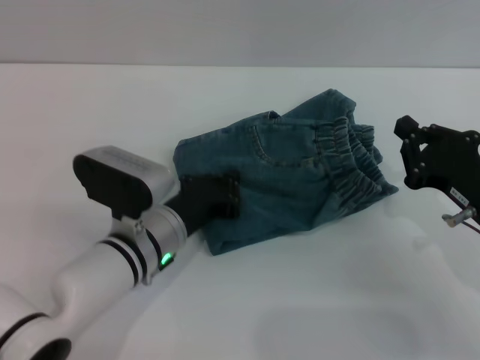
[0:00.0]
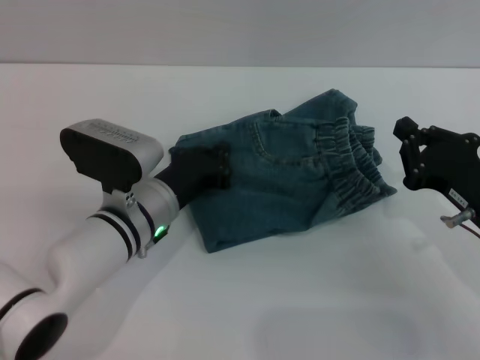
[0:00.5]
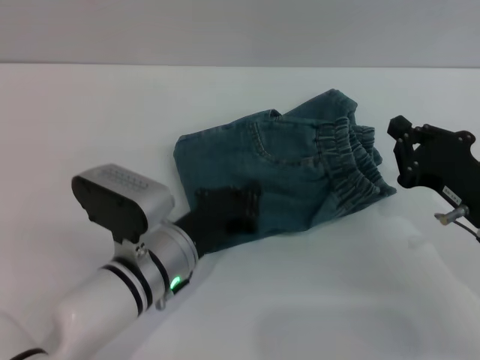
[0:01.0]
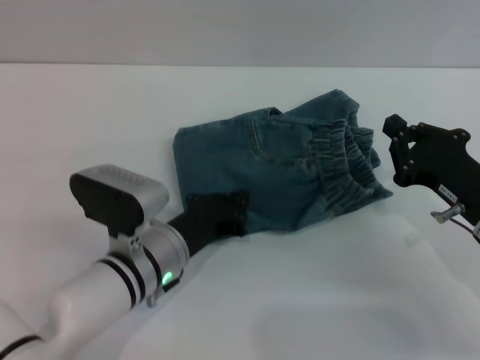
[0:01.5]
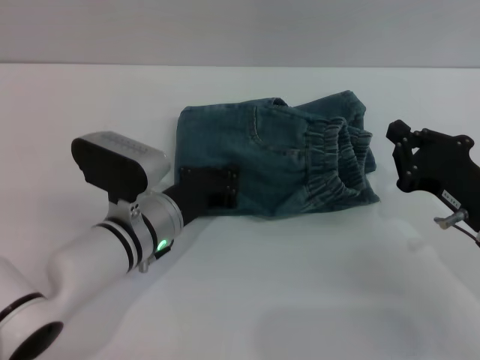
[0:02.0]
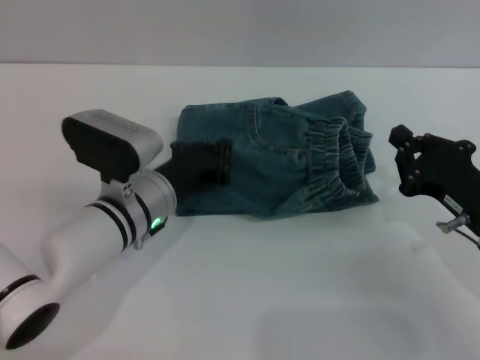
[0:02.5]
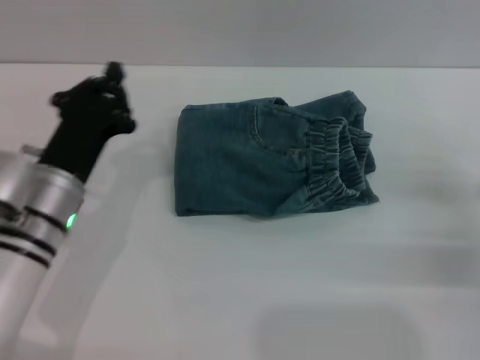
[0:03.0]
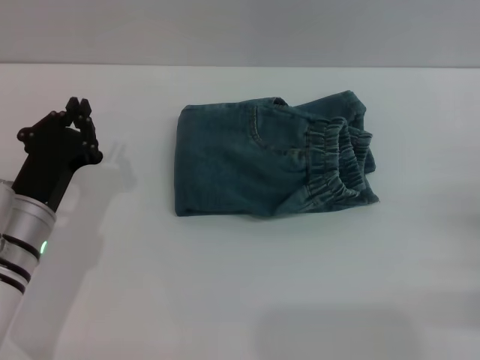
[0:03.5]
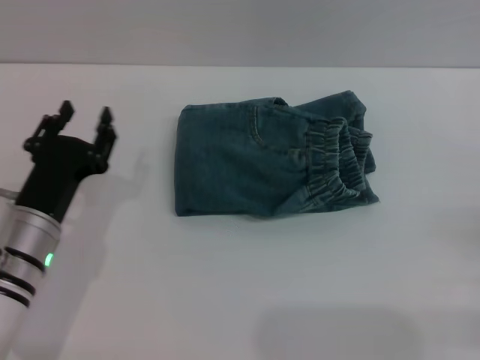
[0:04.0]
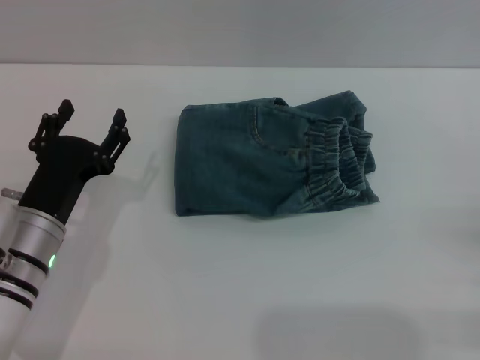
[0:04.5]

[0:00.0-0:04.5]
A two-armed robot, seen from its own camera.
Step, 0:00.0 to 0:02.5: Place the folded trousers onto the center area with the left grippers.
0:00.0 to 0:02.0: The grippers make only small movements.
0:02.0 to 0:04.5: The left gripper travels to the left by about 10 cm, and opens its fingers; the right gripper travels to the right and backward by approximately 15 cm, and opens up.

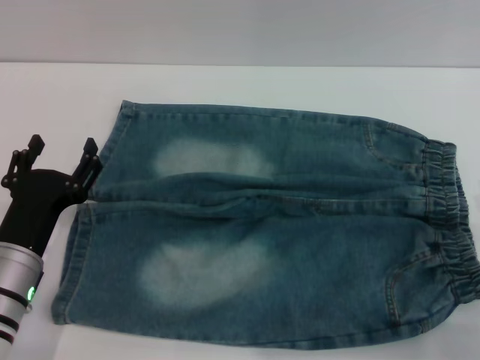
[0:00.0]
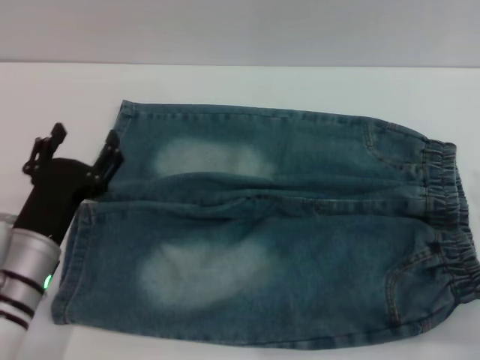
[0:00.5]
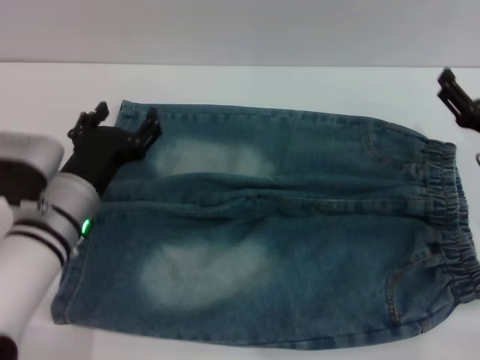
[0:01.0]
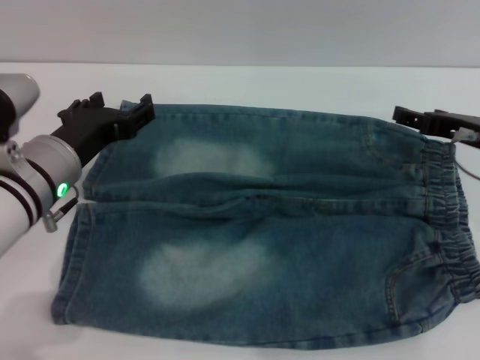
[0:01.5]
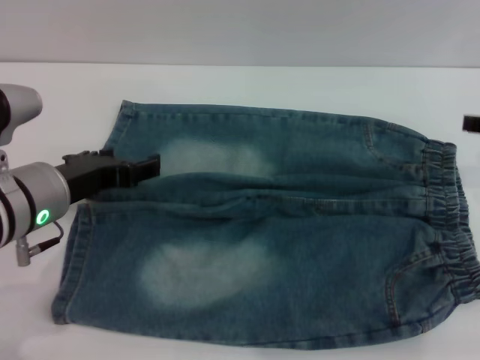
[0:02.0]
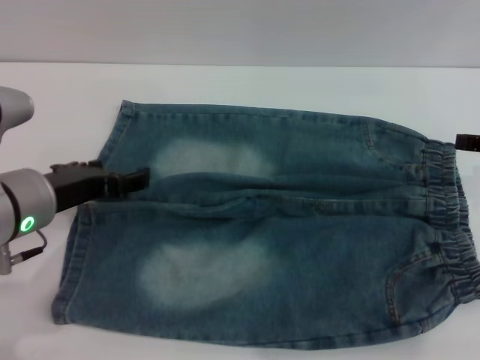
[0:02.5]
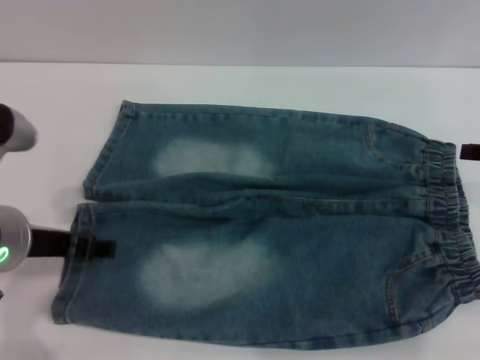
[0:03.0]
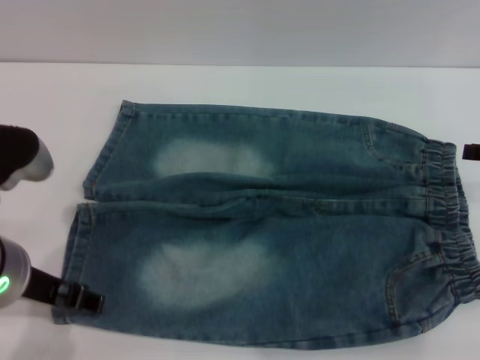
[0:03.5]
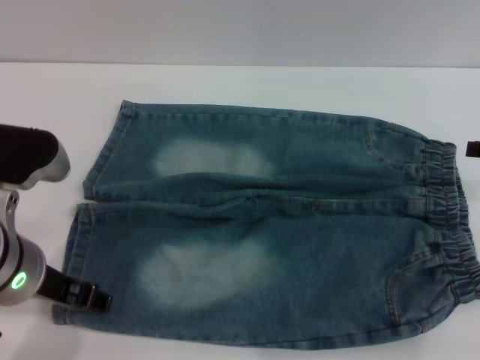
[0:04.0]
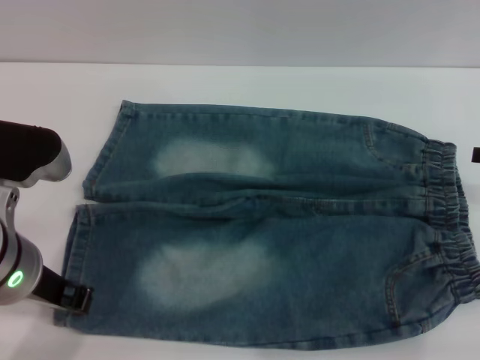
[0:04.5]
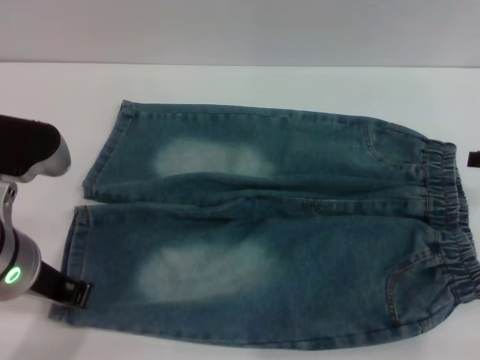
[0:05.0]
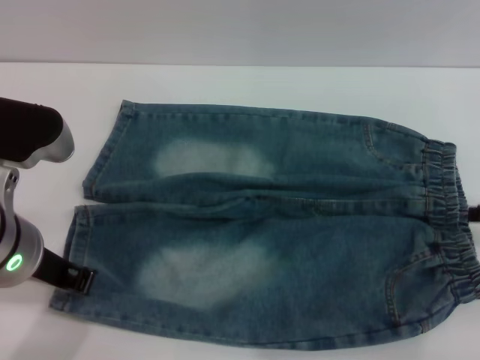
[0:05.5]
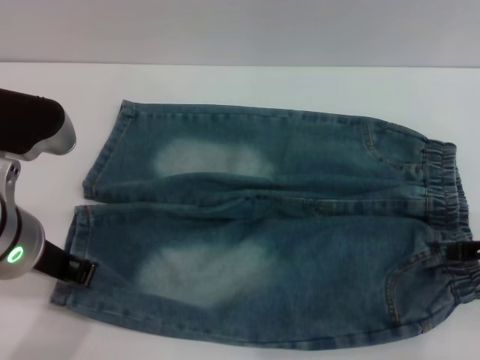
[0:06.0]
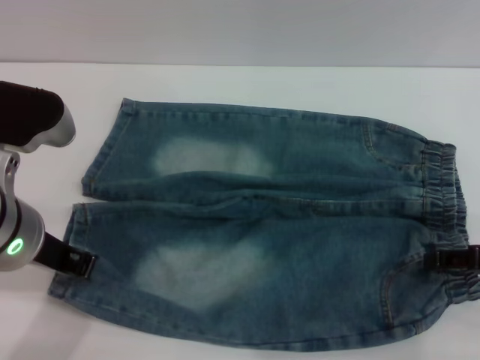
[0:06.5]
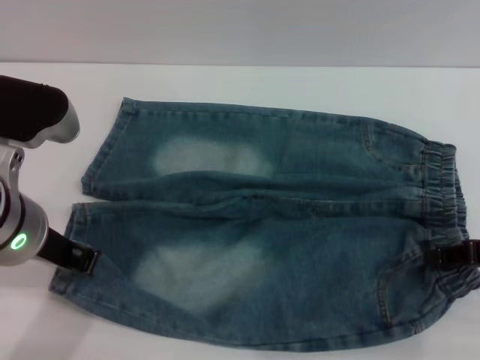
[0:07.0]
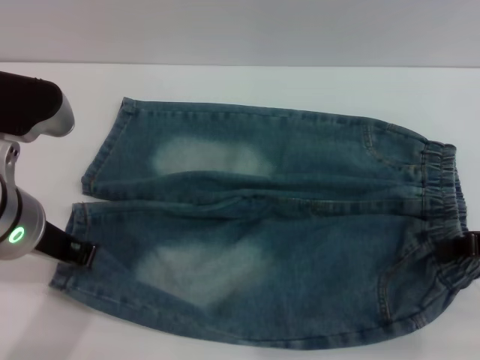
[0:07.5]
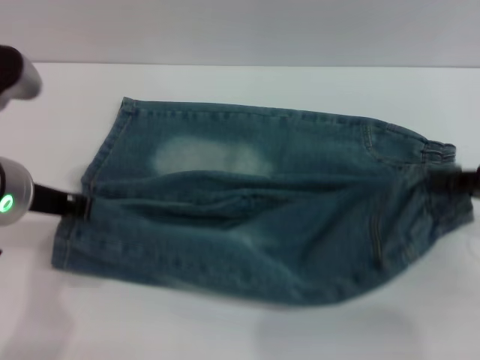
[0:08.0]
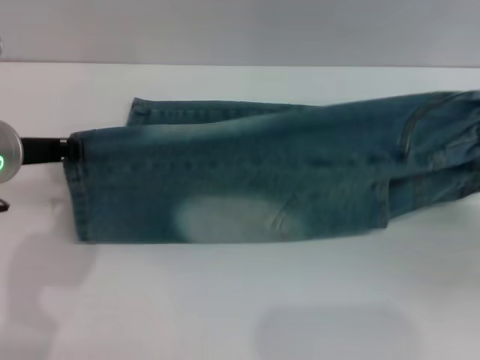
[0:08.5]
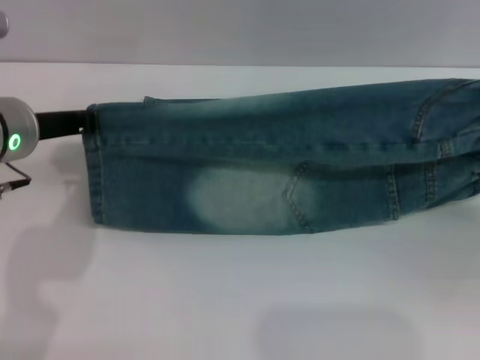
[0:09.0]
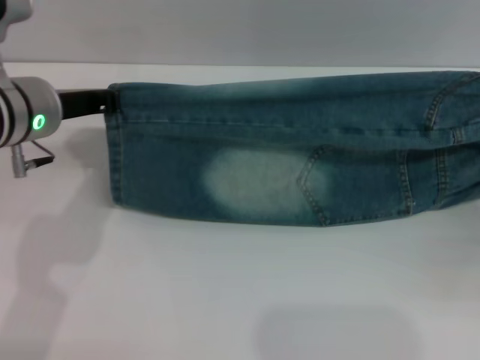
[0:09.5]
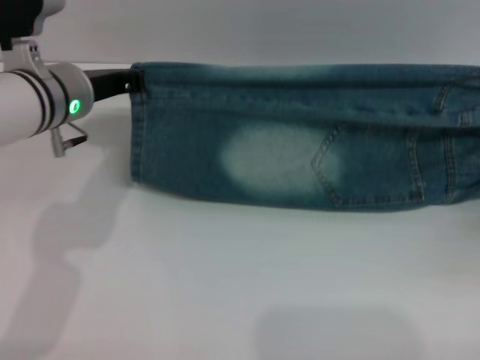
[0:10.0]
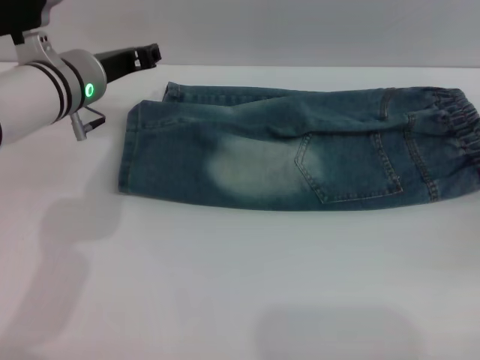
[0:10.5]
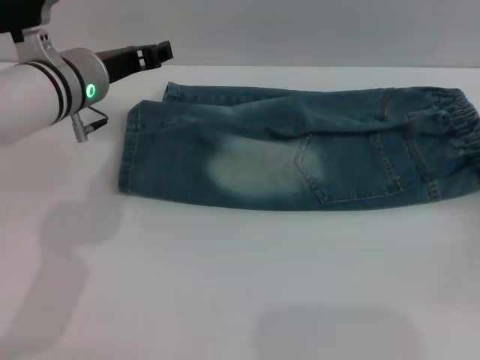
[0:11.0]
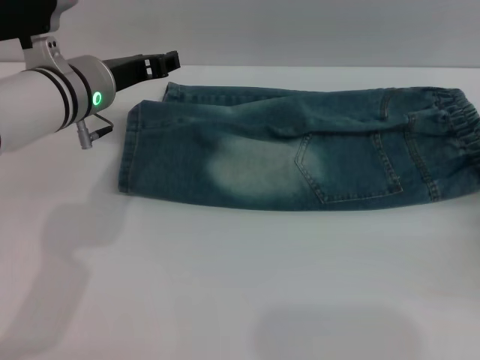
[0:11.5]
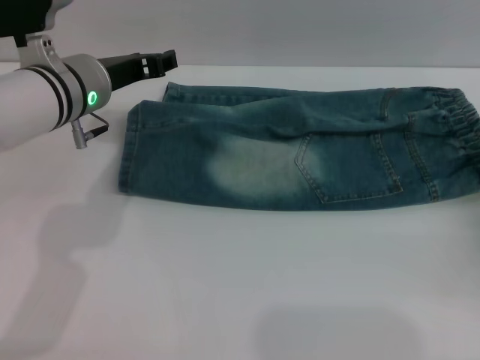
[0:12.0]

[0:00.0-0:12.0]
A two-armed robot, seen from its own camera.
Step, 0:00.0 to 0:10.0: Fold the bottom of the pants upward with both grippers.
0:00.0 to 0:02.0: The right gripper shifts approximately 20 cm upward and forward, while the left gripper goes about 10 cm upward and forward.
0:02.0 to 0:04.0: The left gripper ends up some 5 cm from where it was.
0:04.0 to 0:06.0: The left gripper closes. The right gripper changes place by roughly 5 cm.
0:06.0 to 0:08.0: The right gripper closes its fingers.
0:08.0 to 0:10.0: The left gripper is displaced forward by roughly 10 cm; the right gripper goes about 10 cm downward and to the right.
0:10.0 to 0:12.0: The left gripper opens. Meanwhile the right gripper opens.

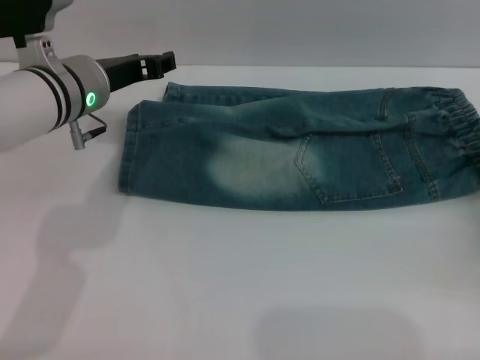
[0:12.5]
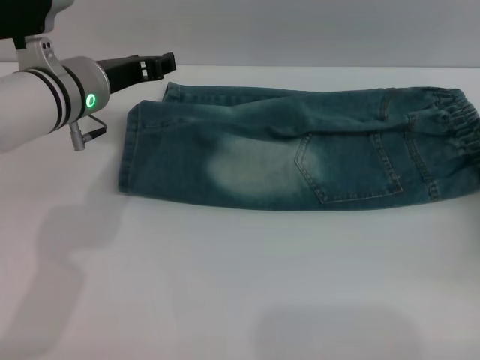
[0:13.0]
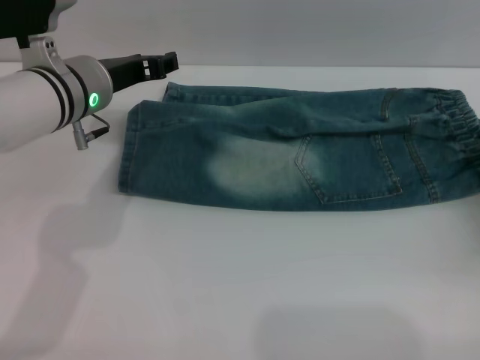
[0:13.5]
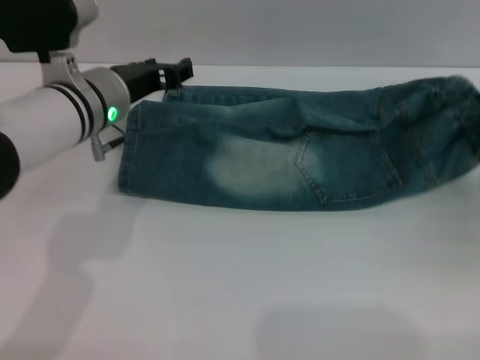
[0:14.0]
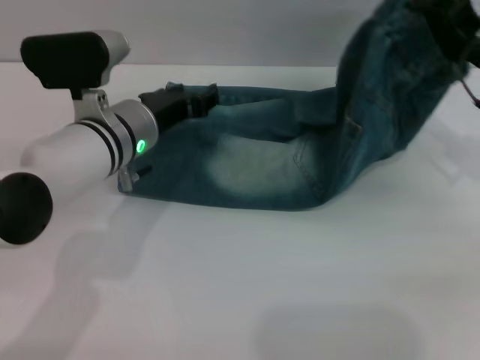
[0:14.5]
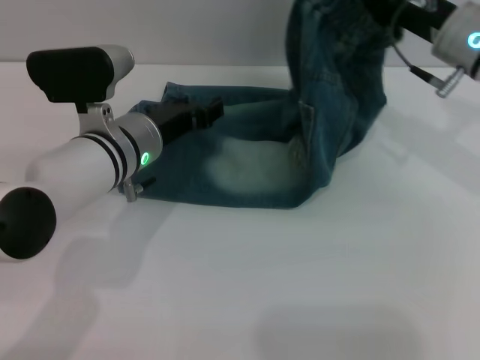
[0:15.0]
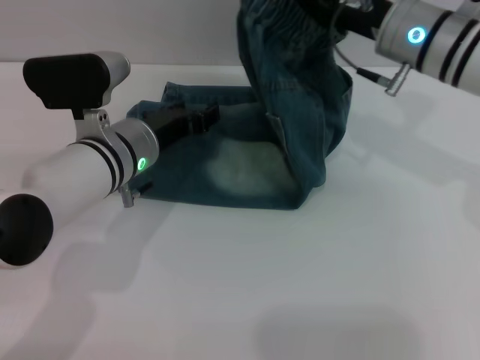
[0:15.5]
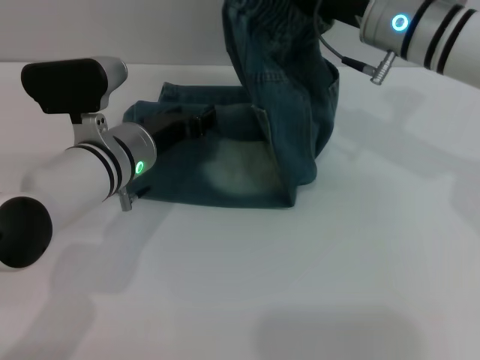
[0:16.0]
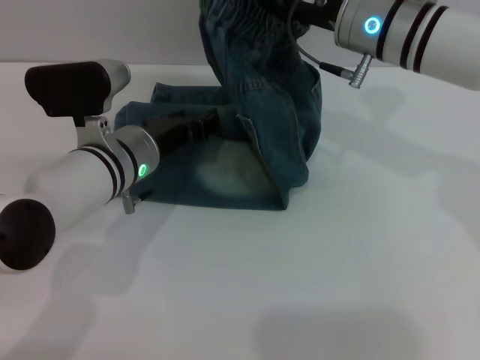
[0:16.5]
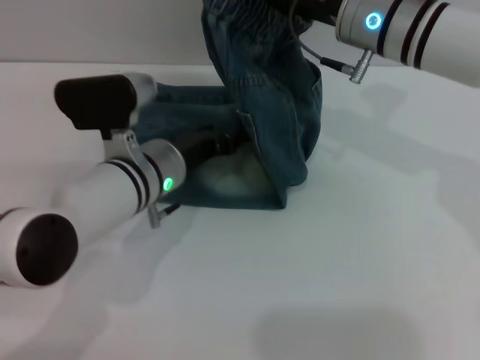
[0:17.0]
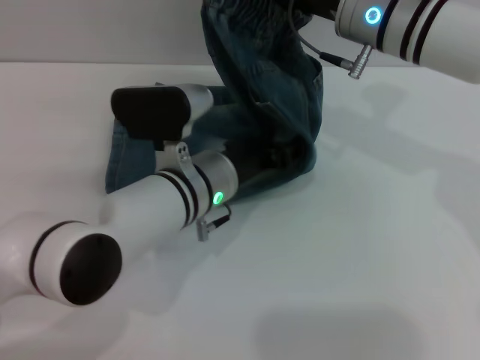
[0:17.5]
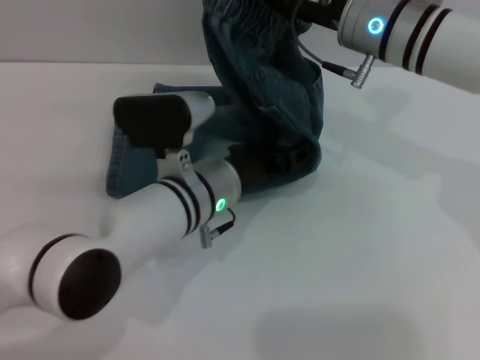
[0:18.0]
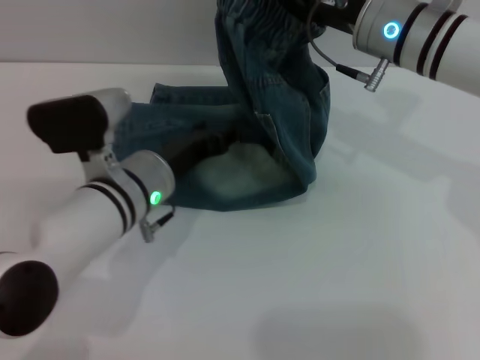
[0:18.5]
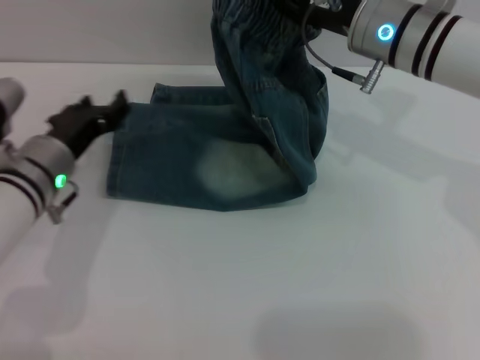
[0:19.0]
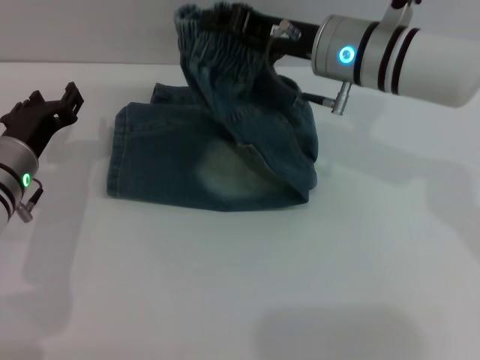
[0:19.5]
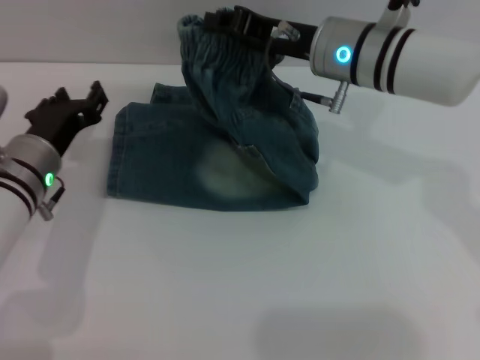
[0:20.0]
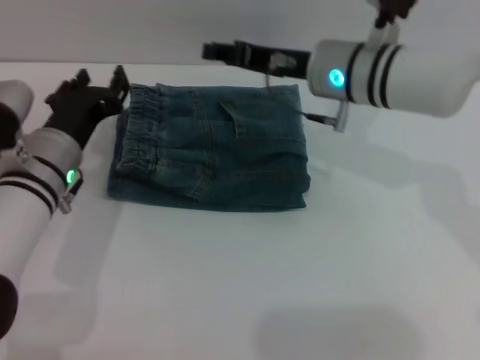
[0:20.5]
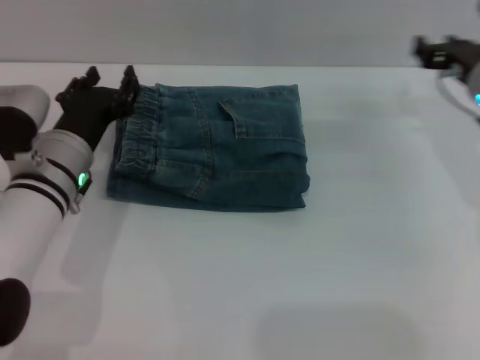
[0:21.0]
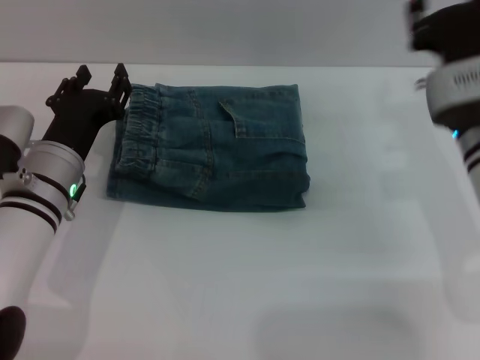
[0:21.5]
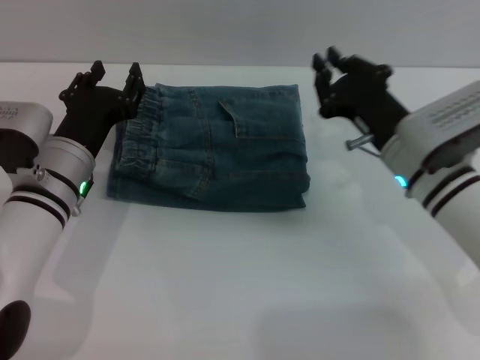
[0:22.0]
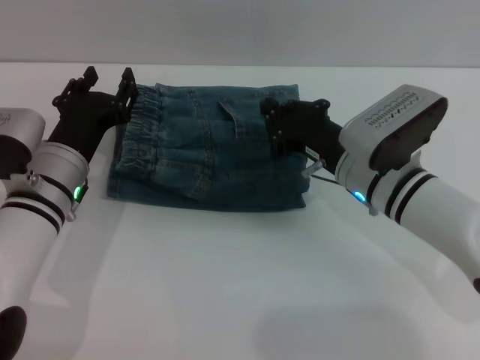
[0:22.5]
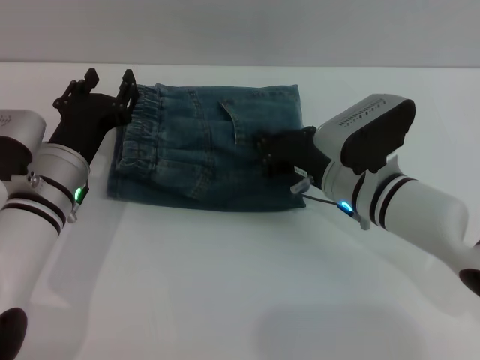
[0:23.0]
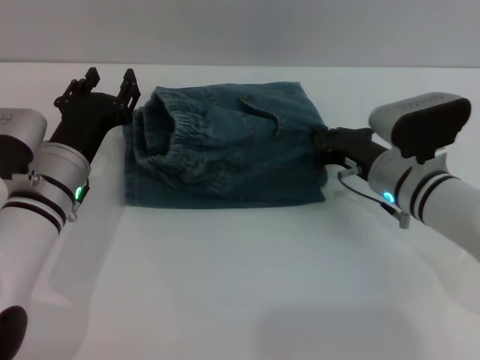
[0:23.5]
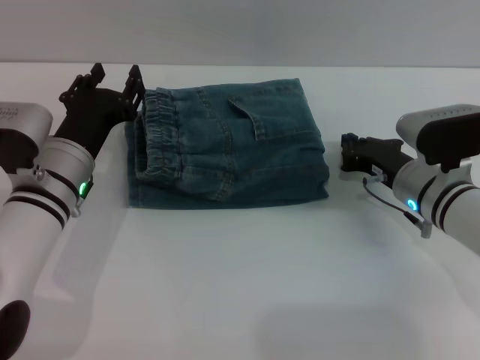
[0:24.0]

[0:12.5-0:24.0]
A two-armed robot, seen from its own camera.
Step, 0:12.5 to 0:20.0: Fold the pants from right to left with the right gripper.
0:12.5 to 0:14.5: The left gripper moves roughly 5 cm, while the right gripper is displaced upward, to the left and forward by approximately 15 cm, and closes.
0:14.5 to 0:16.5: The right gripper shifts some 15 cm to the left.
0:18.5 to 0:20.0: The left gripper is displaced to the left by approximately 10 cm.
0:20.0 to 0:22.0: The right gripper shifts about 15 cm downward, backward and to the right.
0:22.0 to 0:24.0: The right gripper moves roughly 5 cm, and closes.
